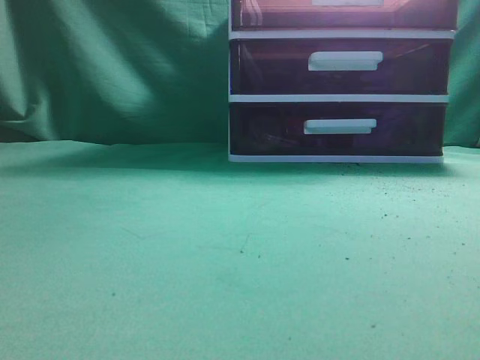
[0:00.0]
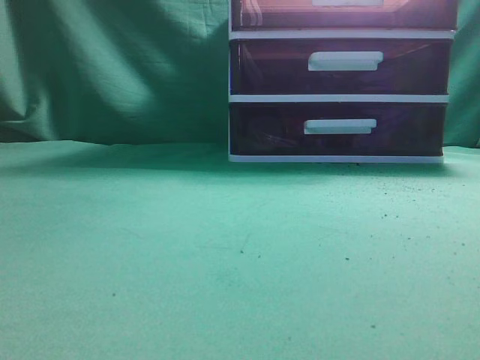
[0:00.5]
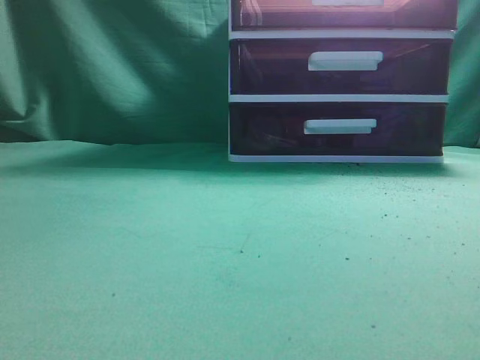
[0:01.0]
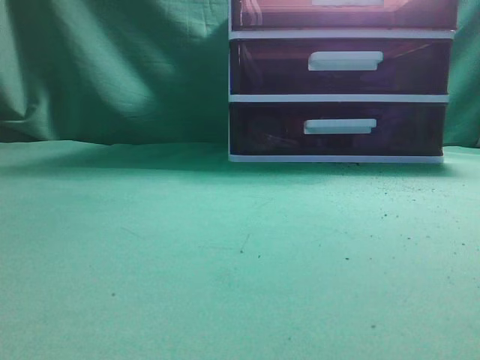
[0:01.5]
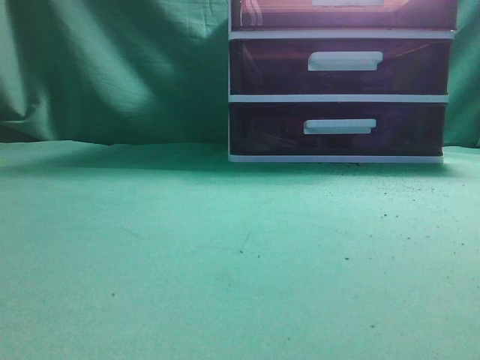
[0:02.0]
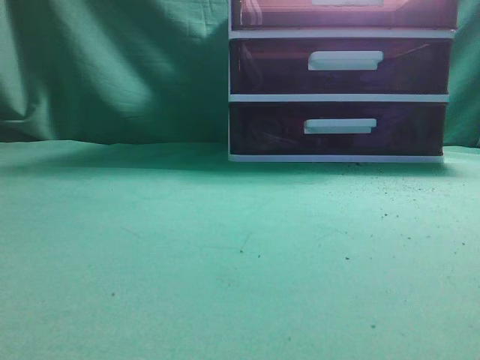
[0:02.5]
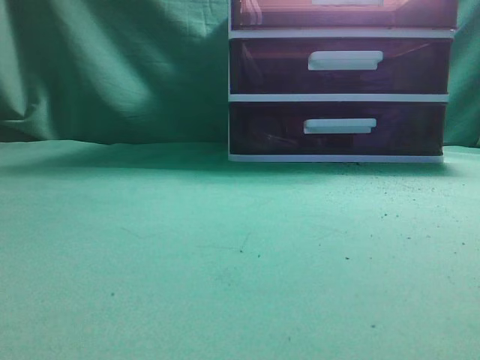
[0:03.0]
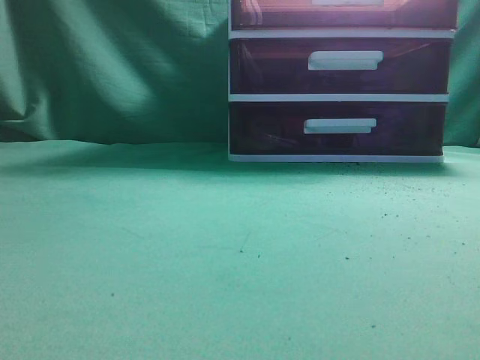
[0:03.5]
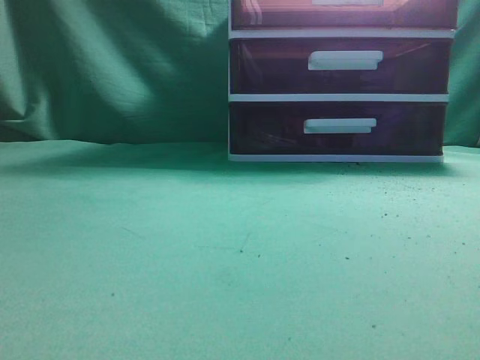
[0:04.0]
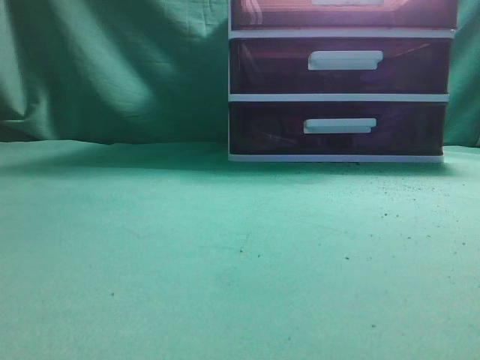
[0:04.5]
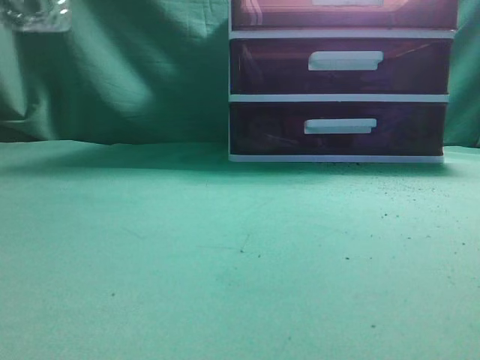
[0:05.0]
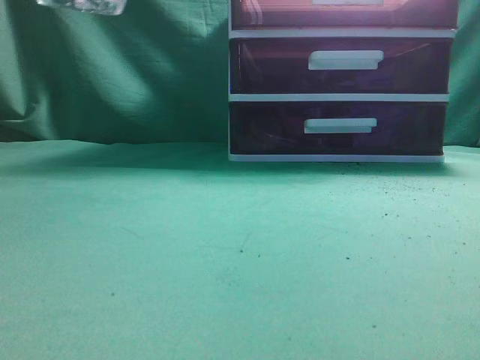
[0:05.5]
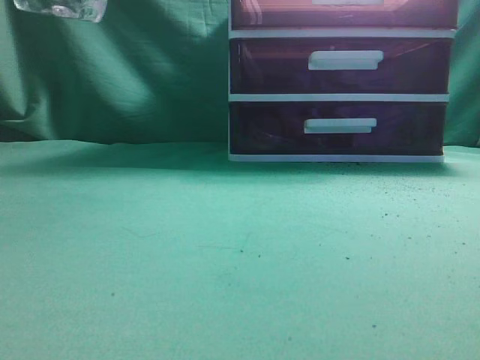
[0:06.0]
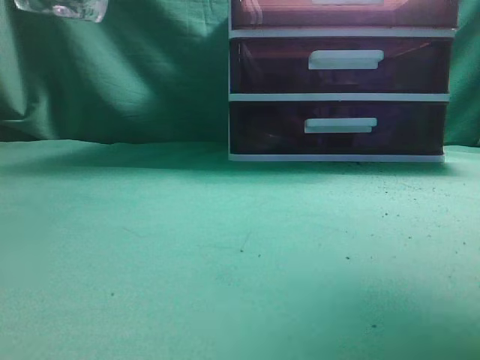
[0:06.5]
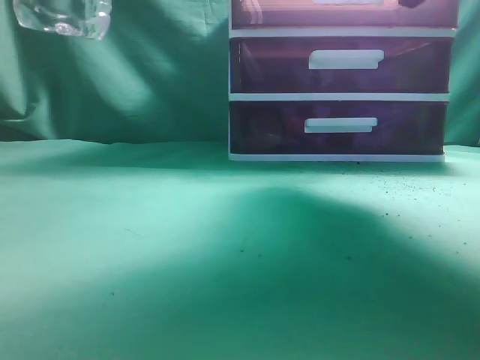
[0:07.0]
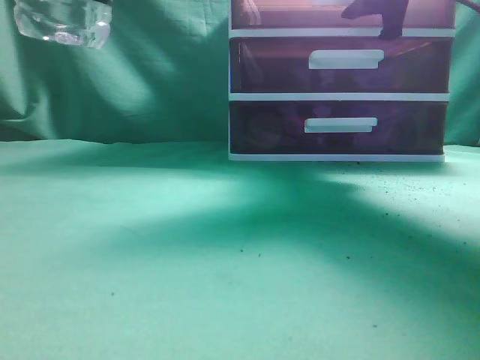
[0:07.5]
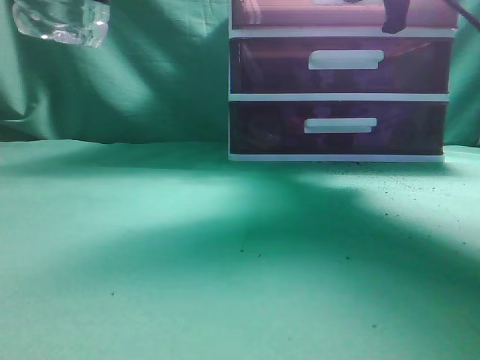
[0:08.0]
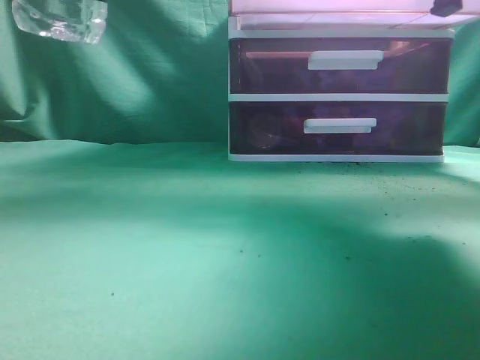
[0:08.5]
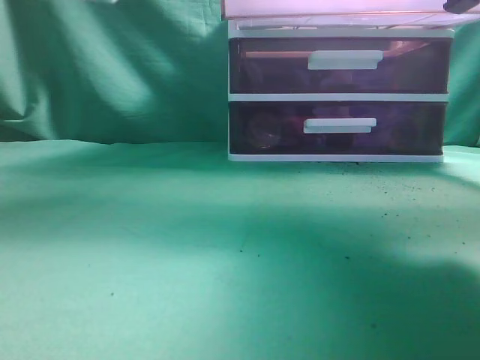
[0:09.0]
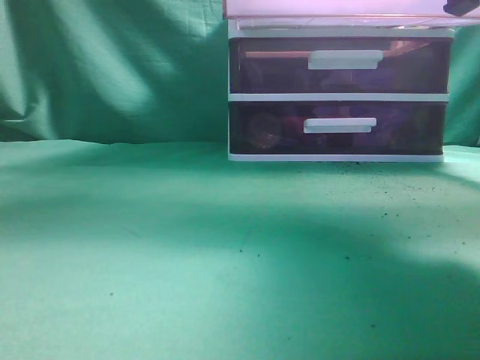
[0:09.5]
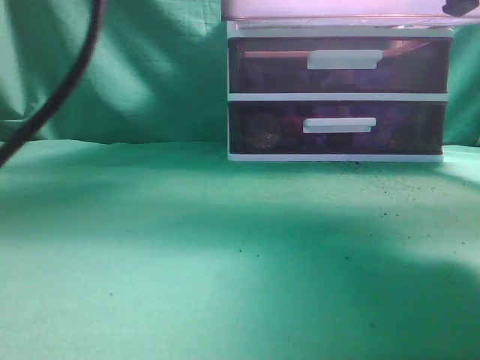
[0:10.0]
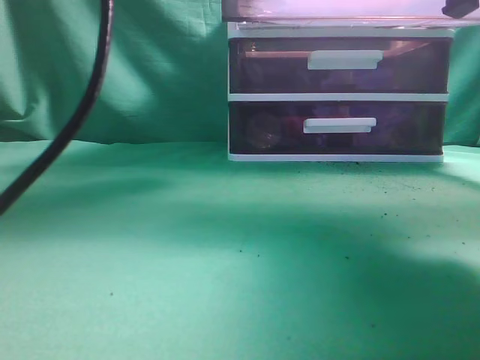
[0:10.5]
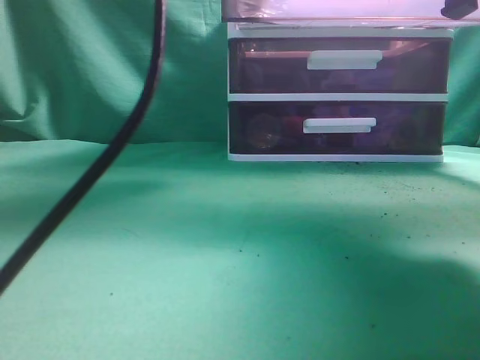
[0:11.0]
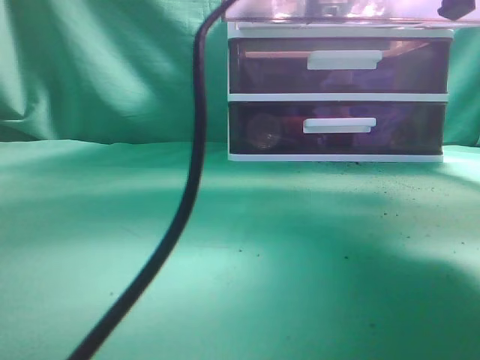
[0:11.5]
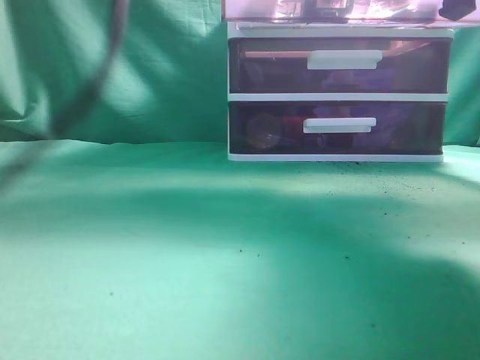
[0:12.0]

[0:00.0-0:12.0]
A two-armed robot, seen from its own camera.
Task of the whole recording: place the water bottle into the drawer.
Step, 0:00.0 to 0:08.5: Open the drawer.
Step, 0:09.0 to 0:11.5: Place the water bottle inside the drawer.
0:06.0 to 0:08.0: The right gripper is displaced forward by some 25 cm, and opens, then closes once more.
0:08.0 to 0:10.0: The left gripper heads forward and to the right, covering about 20 cm. Meanwhile the right gripper is displaced backward by about 10 cm.
0:10.0 to 0:12.0: The left gripper moves about 10 cm to the right and comes back, and closes.

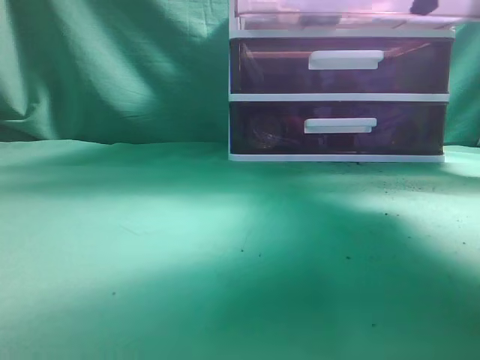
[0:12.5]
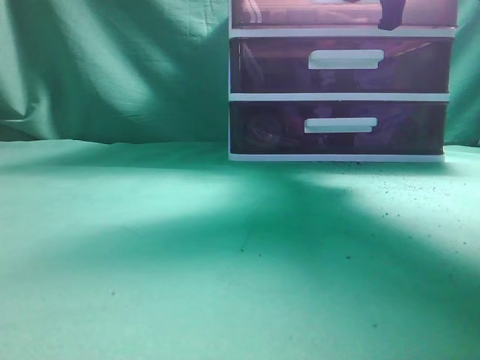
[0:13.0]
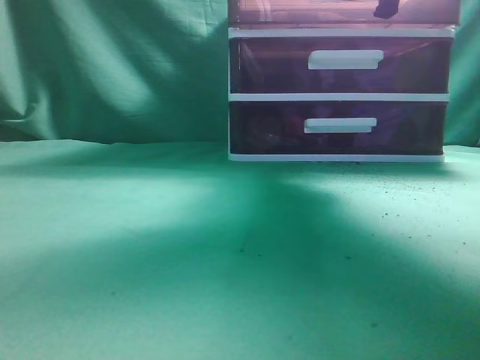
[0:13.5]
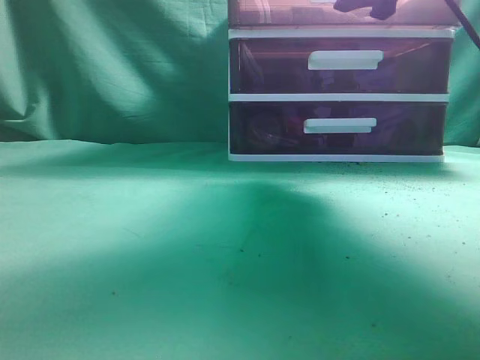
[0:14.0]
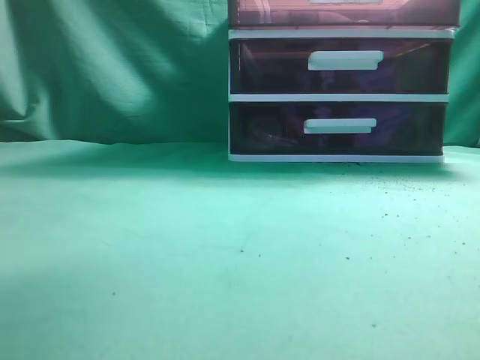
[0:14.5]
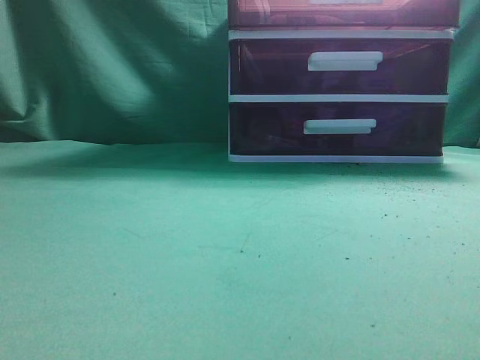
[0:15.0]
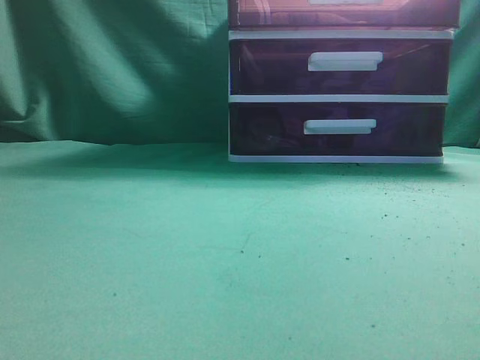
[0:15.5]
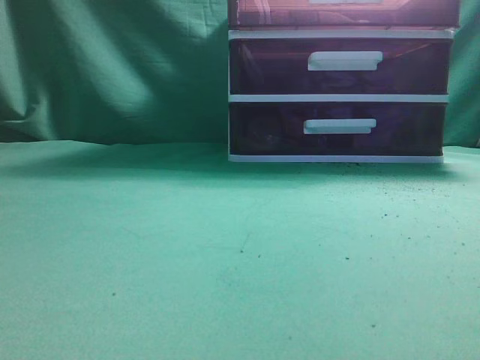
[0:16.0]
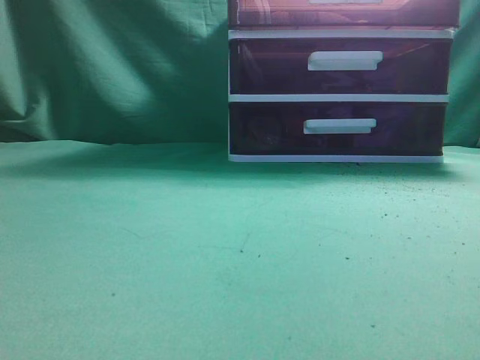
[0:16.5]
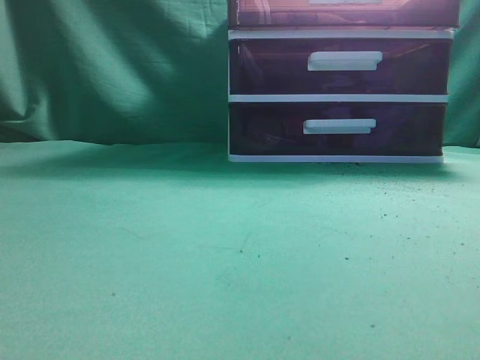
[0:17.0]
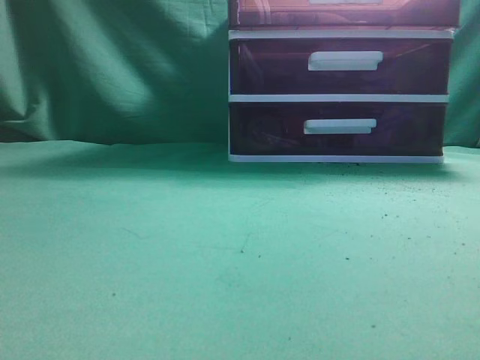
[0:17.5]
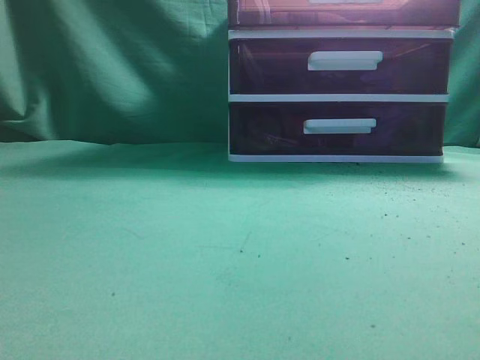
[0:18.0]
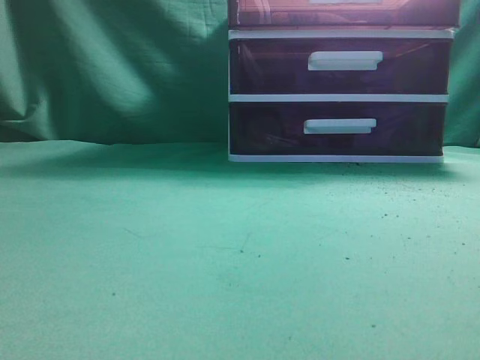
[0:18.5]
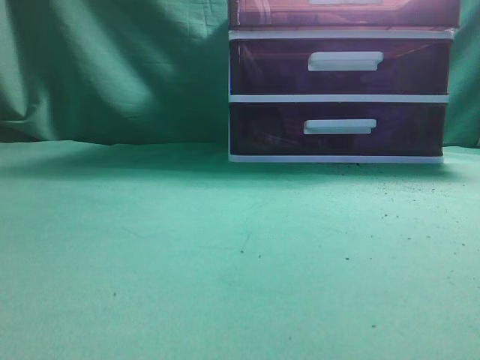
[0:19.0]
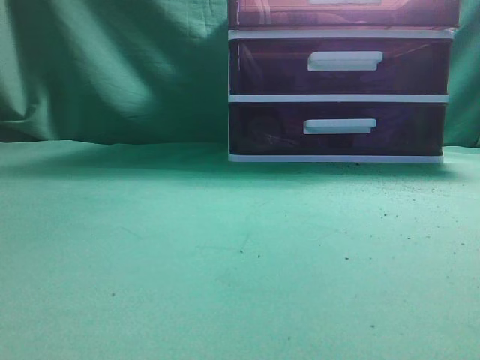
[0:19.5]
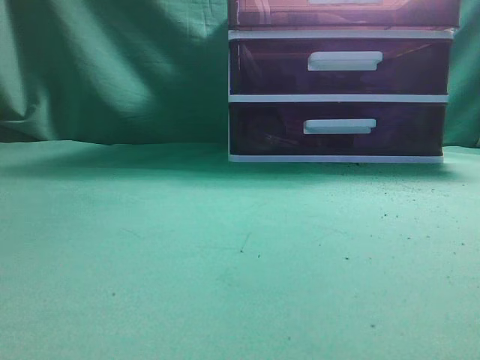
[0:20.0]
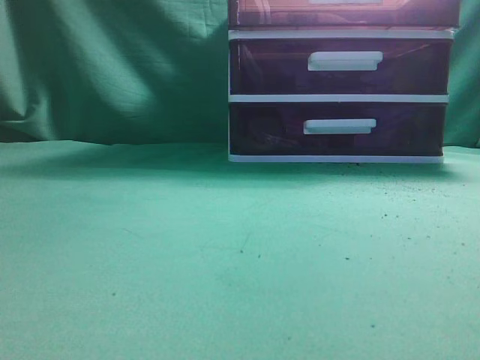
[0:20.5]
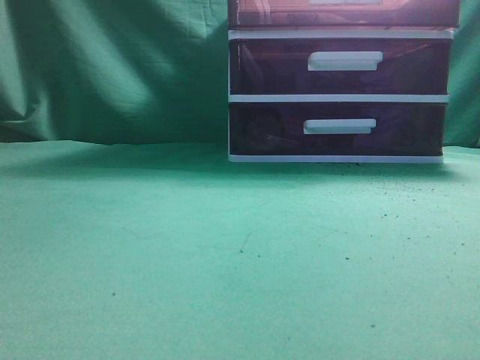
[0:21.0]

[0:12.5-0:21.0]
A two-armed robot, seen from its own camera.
Task of the whole recording: place the water bottle into the drawer.
Step, 0:12.5 to 0:14.0: Close the drawer.
0:12.5 to 0:14.5: The left gripper is displaced backward and to the left by about 10 cm. The right gripper shifts some 15 cm backward and upward, and opens up.
0:14.5 to 0:16.5: The right gripper goes some 30 cm backward, downward and to the right, and closes its fingers. Meanwhile the left gripper heads downward, covering about 25 cm.
